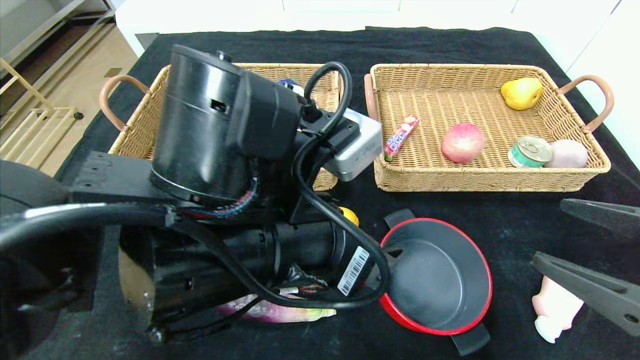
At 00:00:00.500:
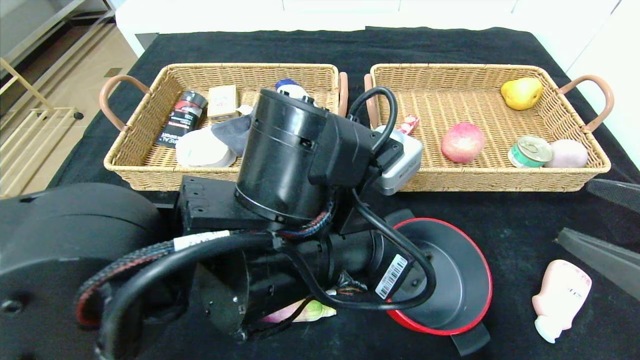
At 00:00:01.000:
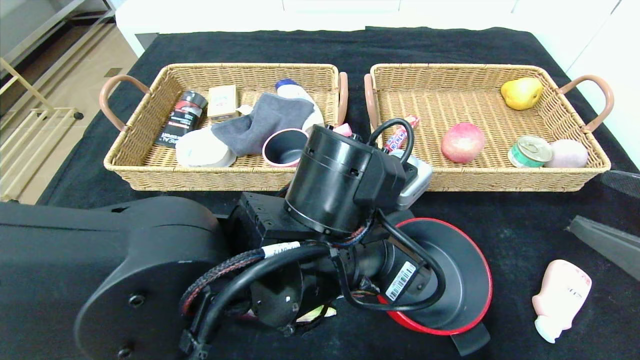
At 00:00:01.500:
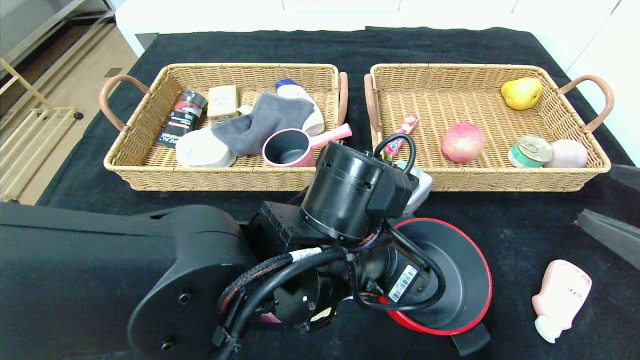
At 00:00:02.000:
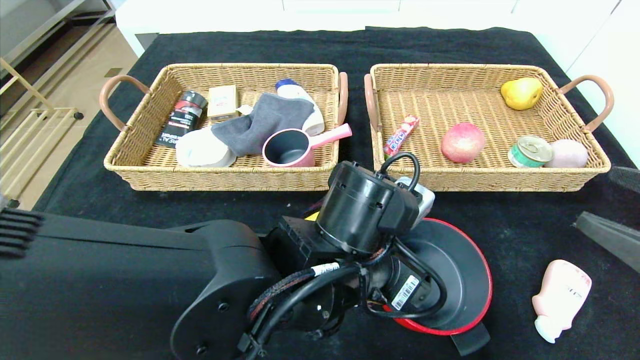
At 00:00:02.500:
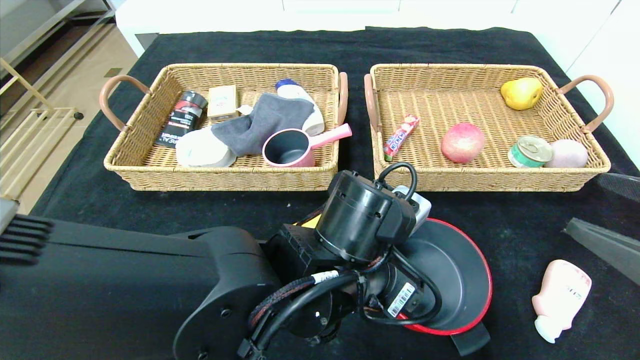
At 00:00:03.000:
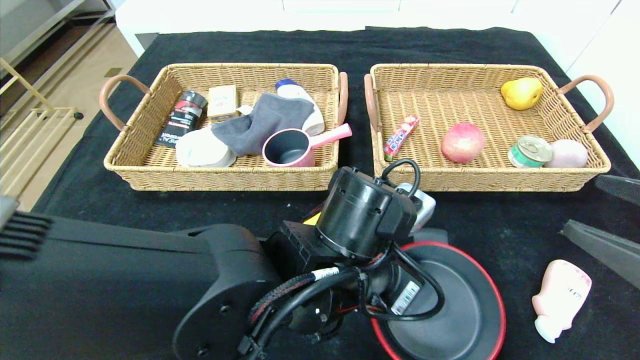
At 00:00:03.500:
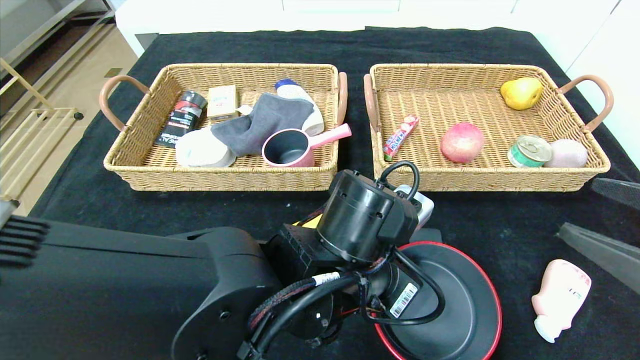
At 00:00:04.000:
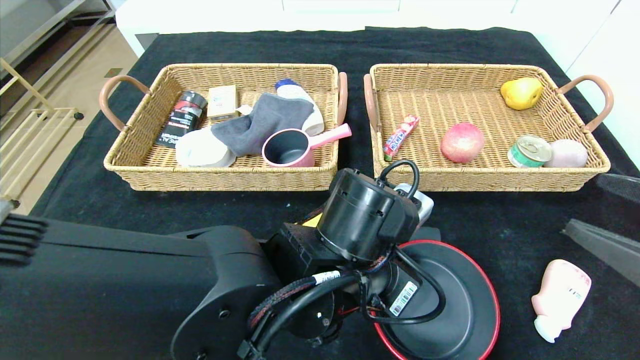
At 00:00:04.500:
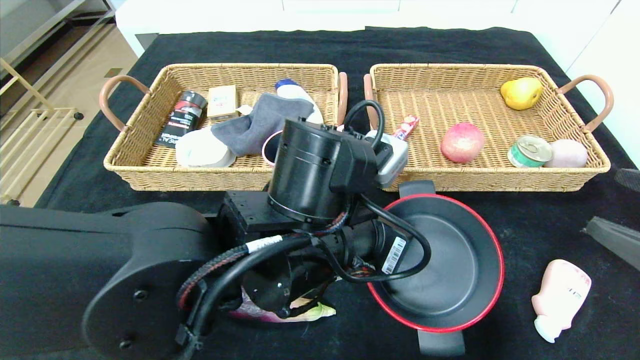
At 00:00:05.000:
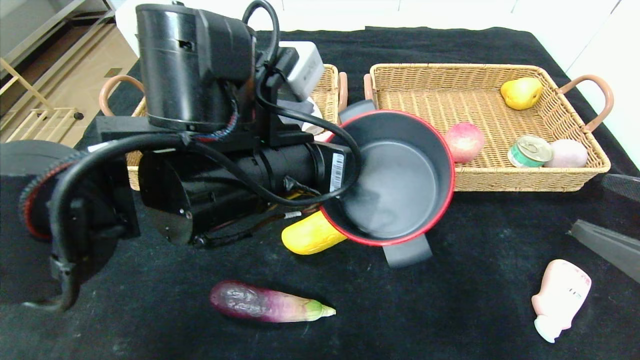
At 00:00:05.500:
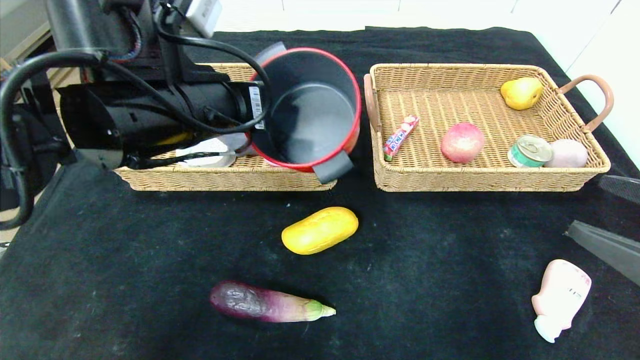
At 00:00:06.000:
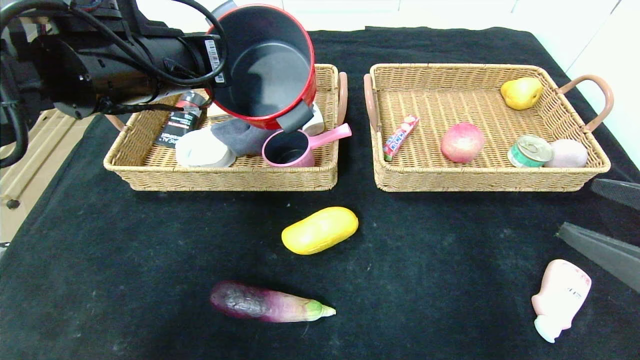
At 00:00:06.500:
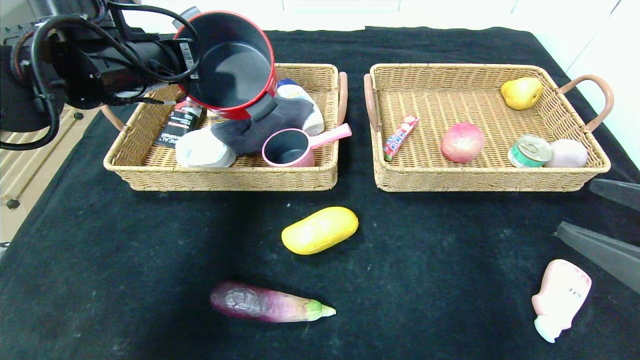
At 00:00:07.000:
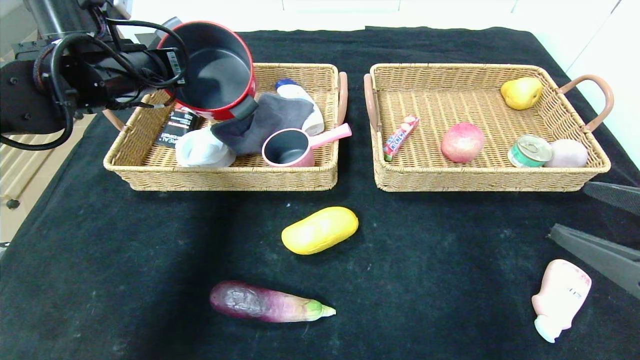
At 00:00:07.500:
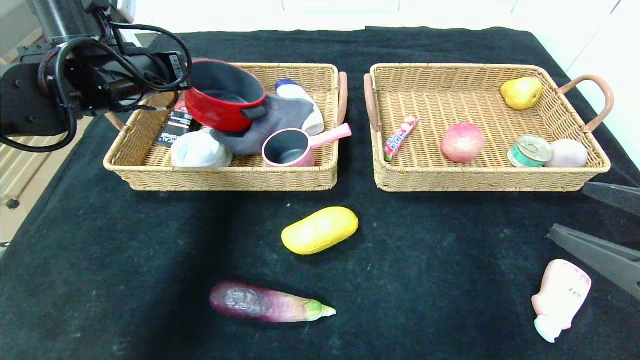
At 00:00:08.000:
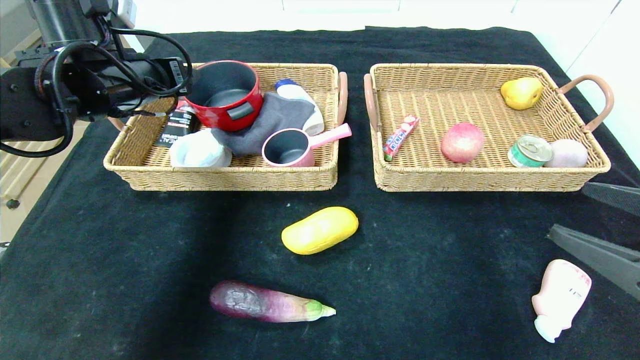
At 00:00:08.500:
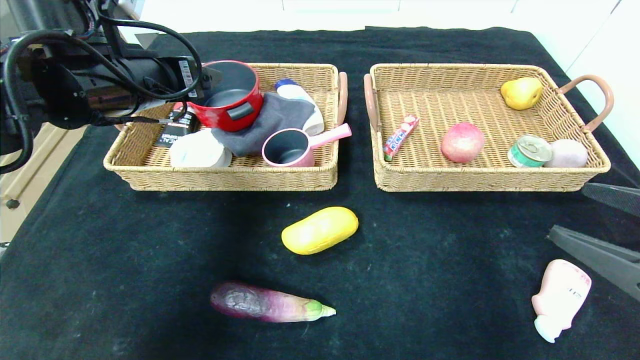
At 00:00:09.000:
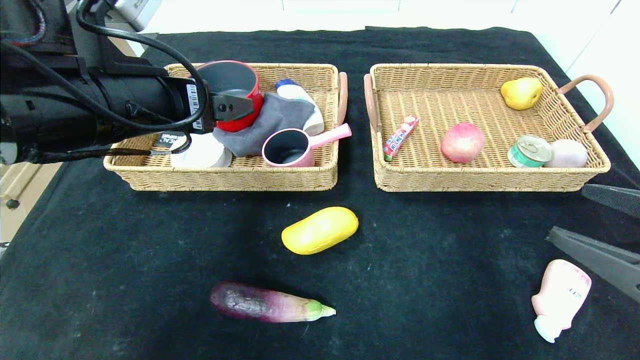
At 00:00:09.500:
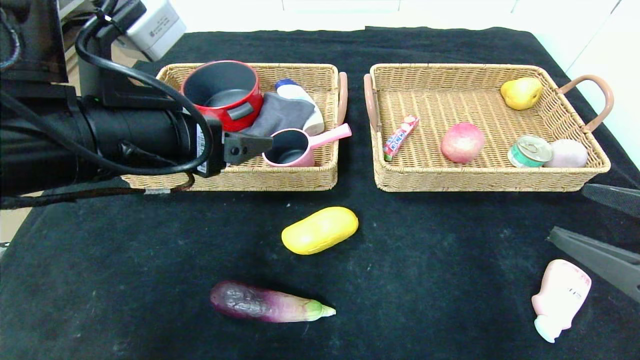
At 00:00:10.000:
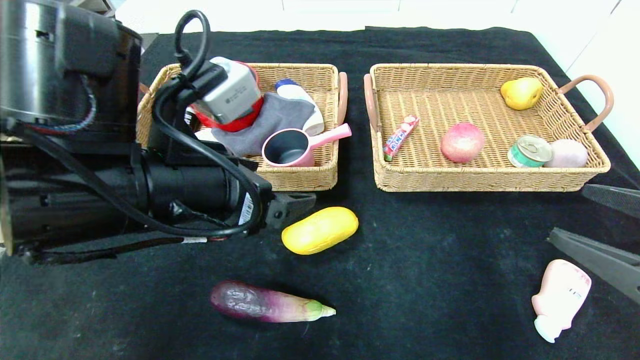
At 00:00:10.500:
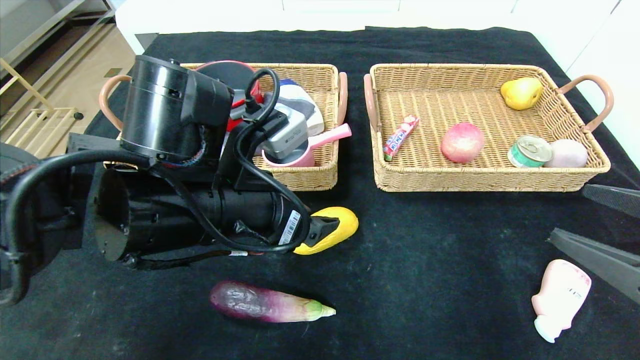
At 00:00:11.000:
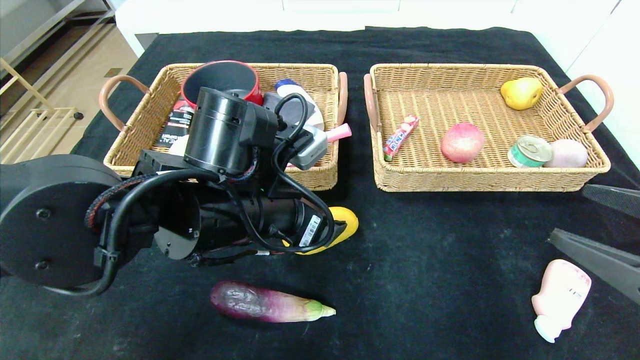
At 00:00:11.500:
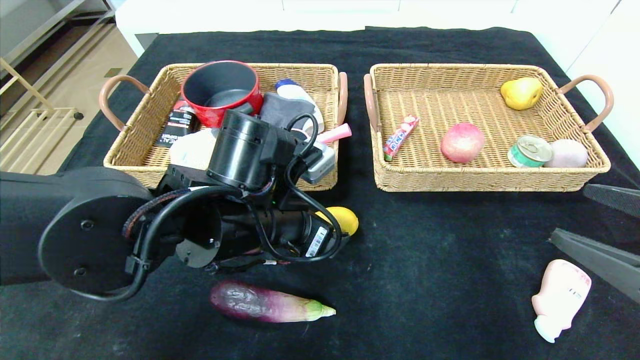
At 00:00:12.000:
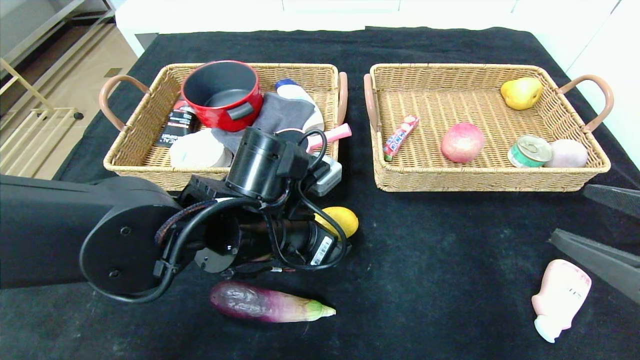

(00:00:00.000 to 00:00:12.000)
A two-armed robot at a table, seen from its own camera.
Step, 00:00:00.000 - 00:00:07.500: Grasp the red pot and put it in the left basket.
00:00:00.000 - 00:00:02.000: The left gripper shifts some 10 cm downward and to the right.
00:00:02.000 - 00:00:04.000: The left gripper closes up.
00:00:04.000 - 00:00:06.000: The left gripper goes approximately 25 cm to the left, upward and forward.
00:00:06.000 - 00:00:08.000: The left gripper goes about 10 cm to the left and forward, and opens up.
00:00:08.000 - 00:00:10.000: The left gripper shifts some 20 cm backward and to the right.
00:00:10.000 - 00:00:12.000: The left gripper heads downward and to the right, covering roughly 10 cm.

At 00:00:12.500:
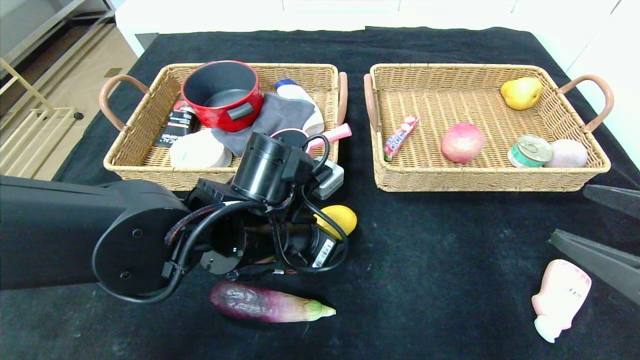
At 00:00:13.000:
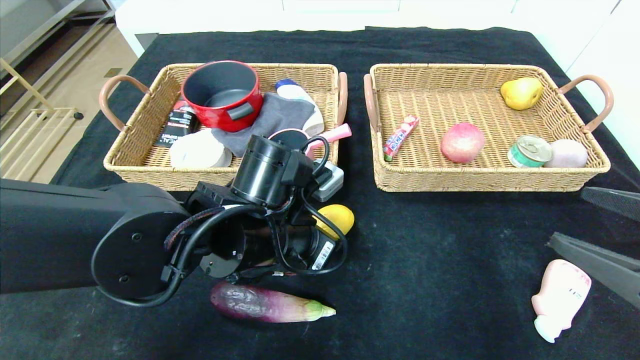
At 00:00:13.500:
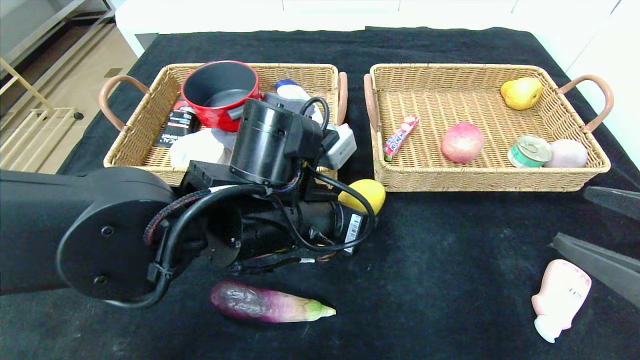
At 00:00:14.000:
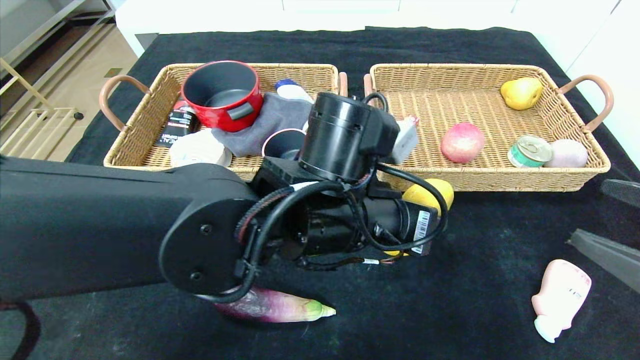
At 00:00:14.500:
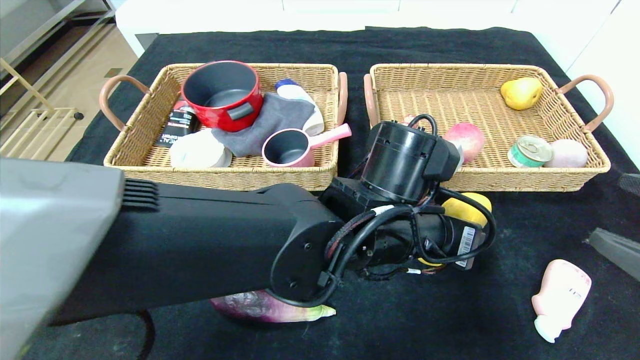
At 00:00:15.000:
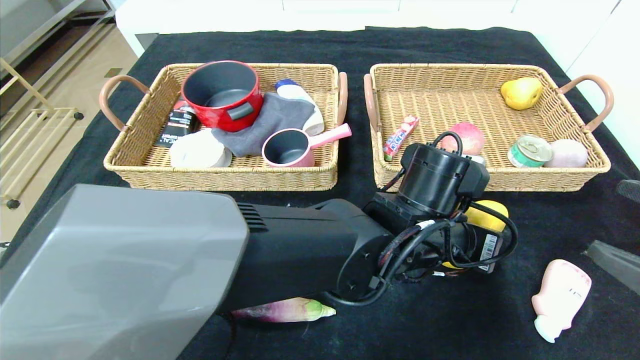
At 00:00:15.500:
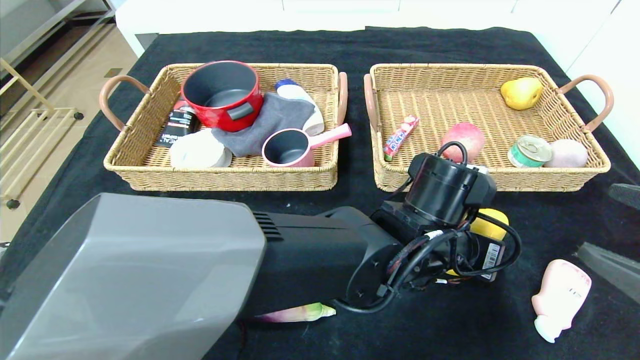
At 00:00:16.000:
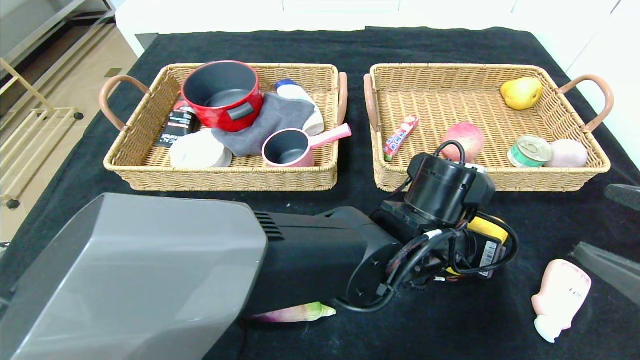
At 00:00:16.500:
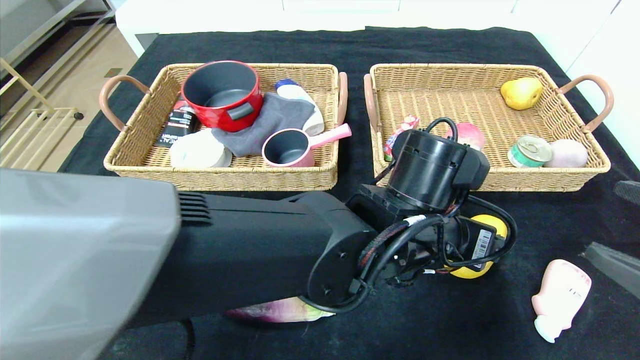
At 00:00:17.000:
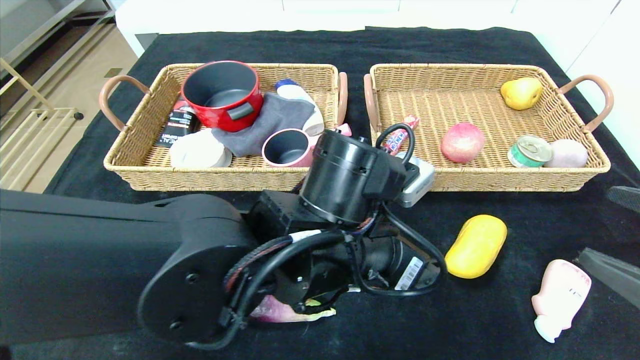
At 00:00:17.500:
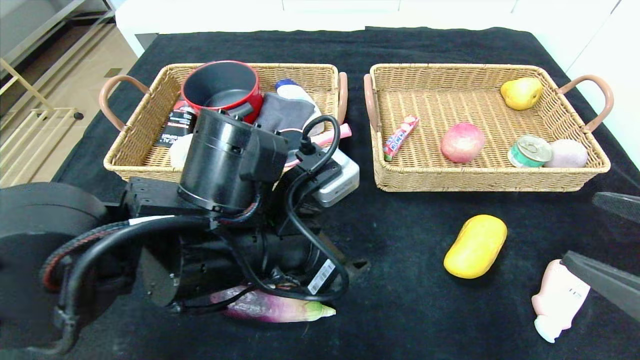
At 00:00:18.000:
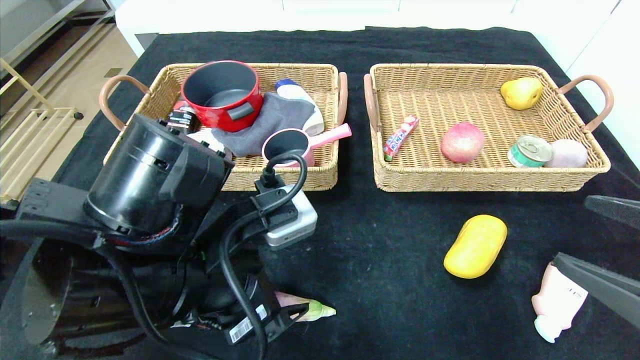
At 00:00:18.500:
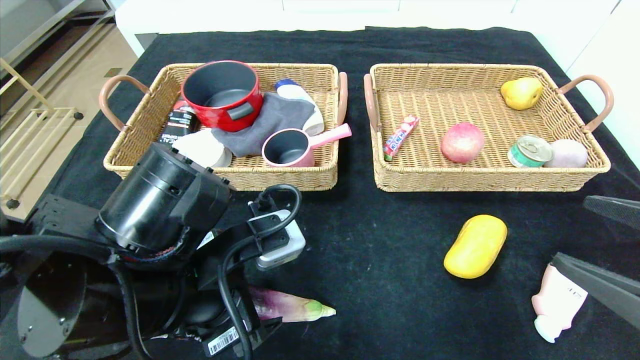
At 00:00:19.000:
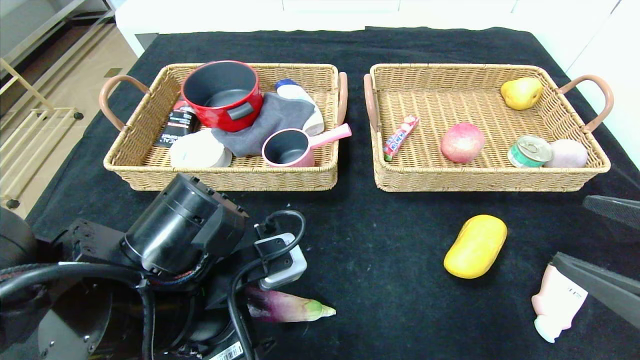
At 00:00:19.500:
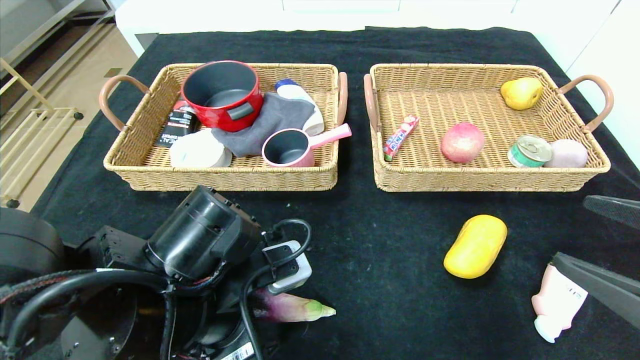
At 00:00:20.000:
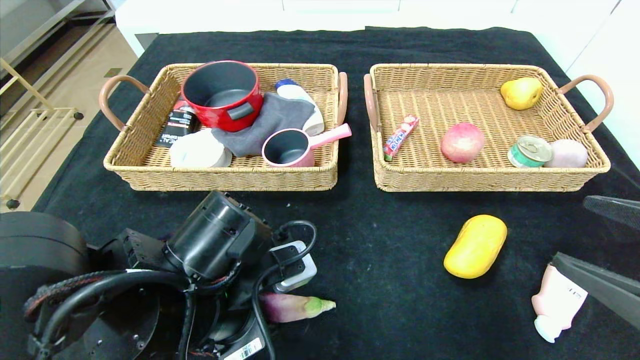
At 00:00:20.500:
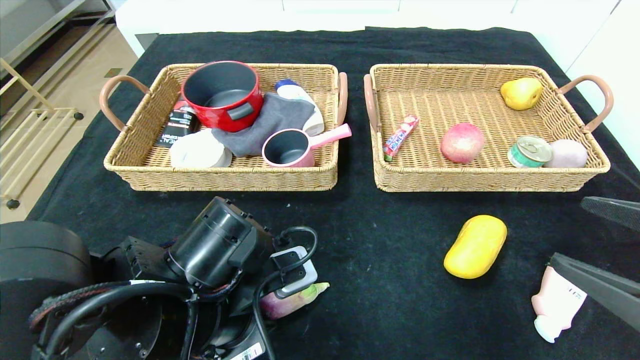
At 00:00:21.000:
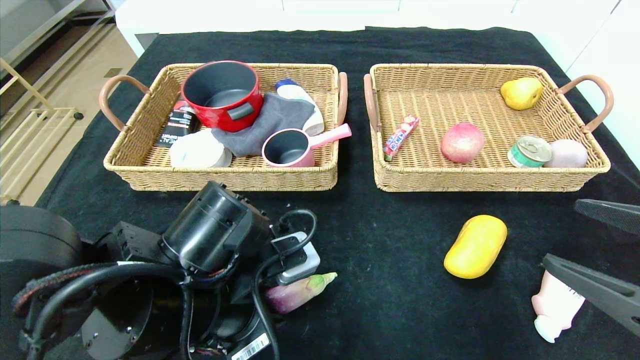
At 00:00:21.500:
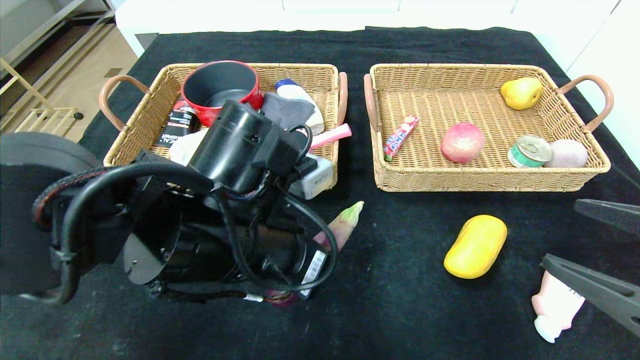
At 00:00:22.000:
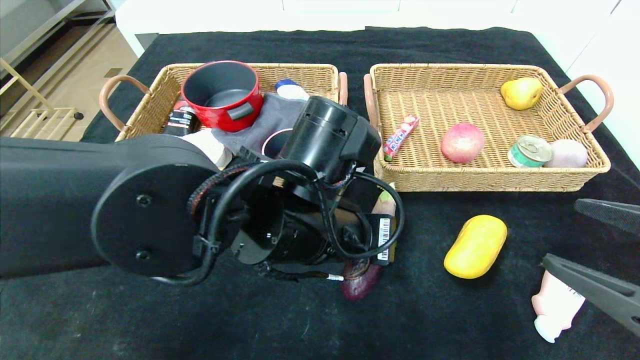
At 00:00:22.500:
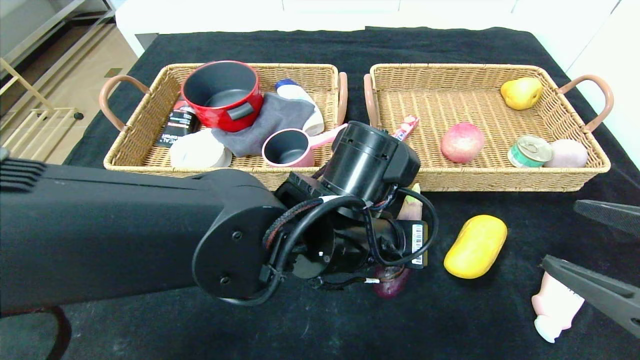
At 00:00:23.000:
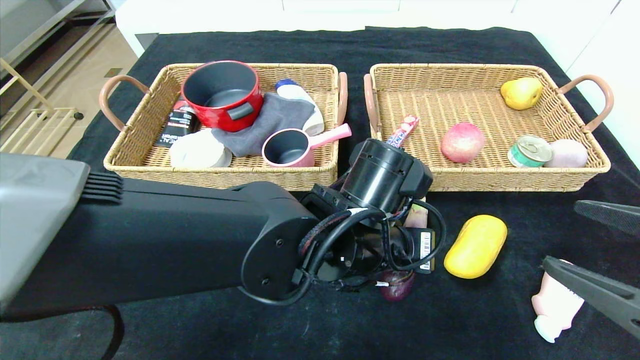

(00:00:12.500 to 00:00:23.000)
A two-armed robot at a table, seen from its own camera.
Step, 00:00:12.500 - 00:00:16.000: Place the mango in the center of the table.
00:00:12.500 - 00:00:14.500: The left gripper moves to the right, about 15 cm.
00:00:14.500 - 00:00:16.500: The left gripper opens.
00:00:16.500 - 00:00:19.000: The left gripper moves to the left, about 20 cm.
00:00:19.000 - 00:00:21.000: The left gripper closes its fingers.
00:00:21.000 - 00:00:23.000: The left gripper is displaced to the right by roughly 15 cm.
